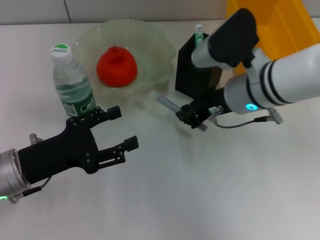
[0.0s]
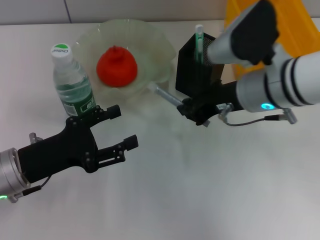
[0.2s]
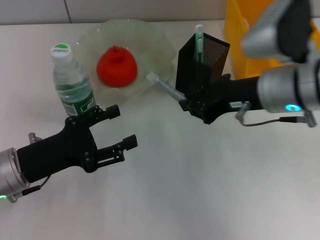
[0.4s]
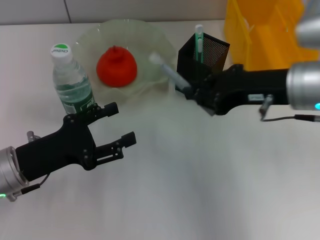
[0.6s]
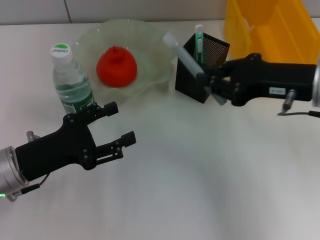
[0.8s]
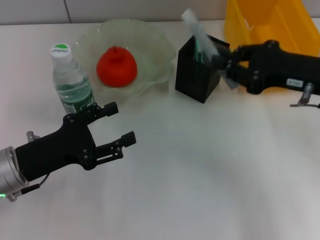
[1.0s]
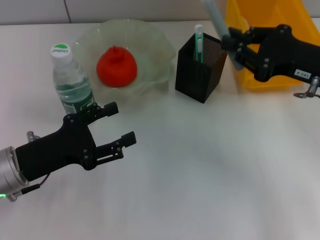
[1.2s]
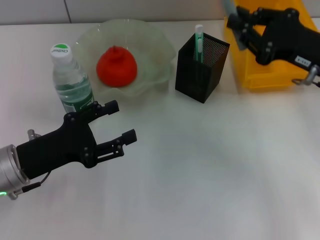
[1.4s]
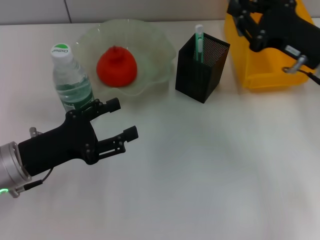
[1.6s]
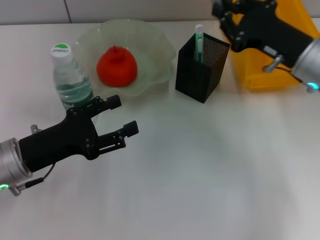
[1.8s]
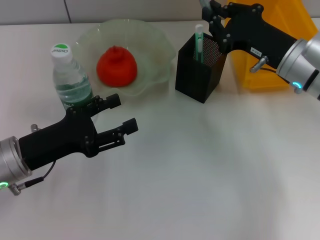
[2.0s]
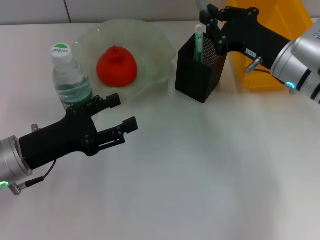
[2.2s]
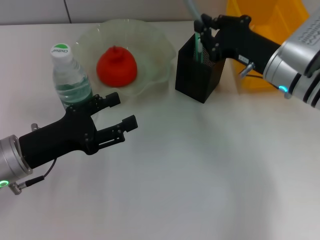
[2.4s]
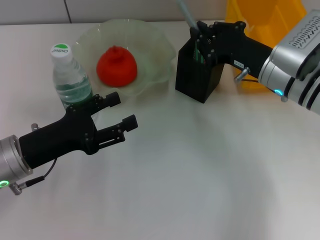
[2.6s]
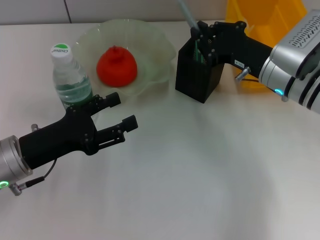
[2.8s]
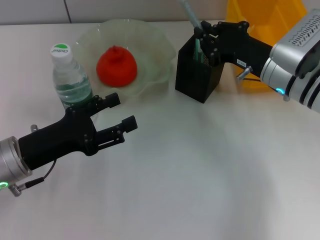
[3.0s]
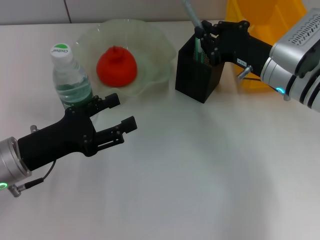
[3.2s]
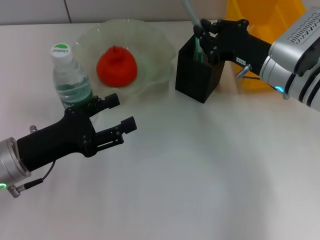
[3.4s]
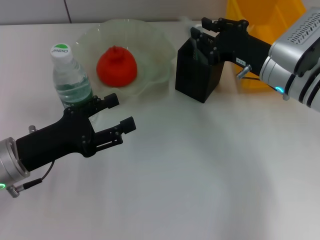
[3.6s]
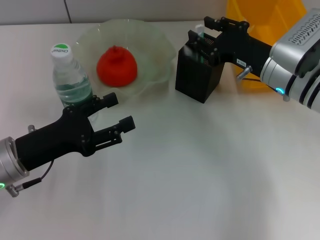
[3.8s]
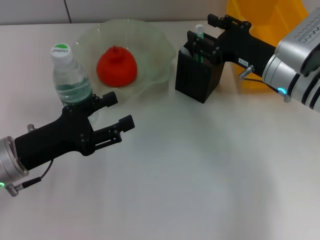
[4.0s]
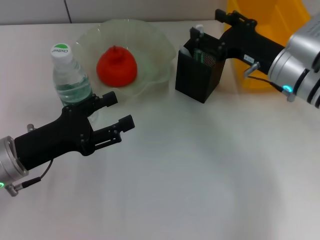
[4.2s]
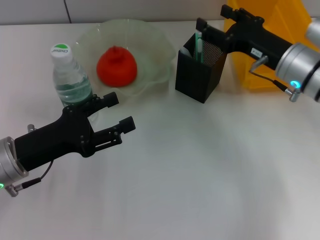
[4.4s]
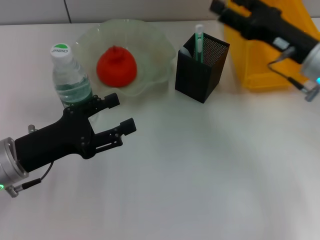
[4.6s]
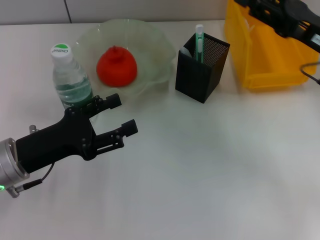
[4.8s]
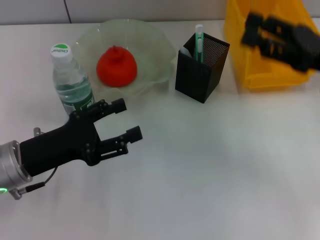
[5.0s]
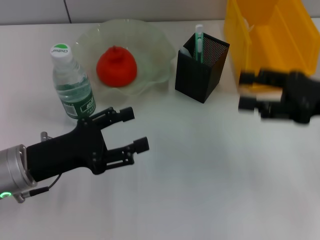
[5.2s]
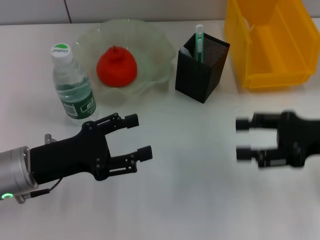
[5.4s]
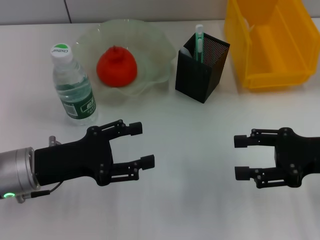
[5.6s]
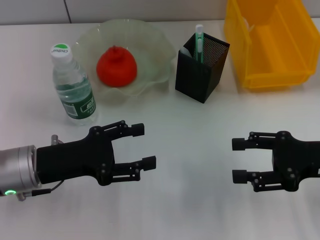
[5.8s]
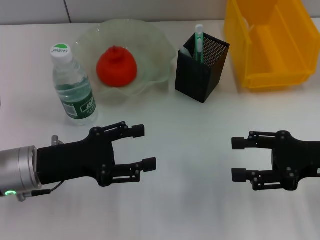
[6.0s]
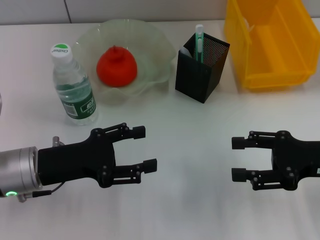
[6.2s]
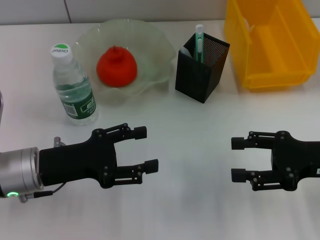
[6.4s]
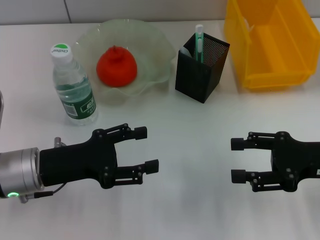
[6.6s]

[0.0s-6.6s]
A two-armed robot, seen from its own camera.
Step, 0.0s to 3.8s: Place the gray glue into the pen holder with the right hand.
0.0s to 1.6s: The right gripper moves to the right, roughly 10 cm.
1.6s to 3.2s: The right gripper is displaced to the left by some 5 cm.
3.2s to 5.0s: The right gripper travels to the right, backward and upward by some 10 cm, and opens its fingers.
5.0s to 6.6s: The right gripper is displaced downward by approximately 5 cm.

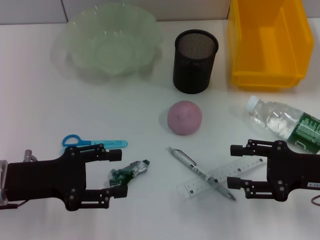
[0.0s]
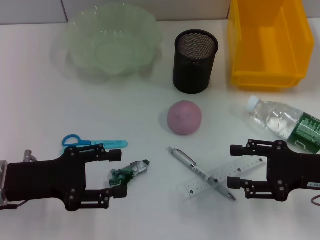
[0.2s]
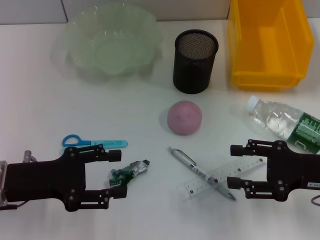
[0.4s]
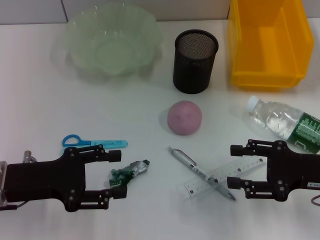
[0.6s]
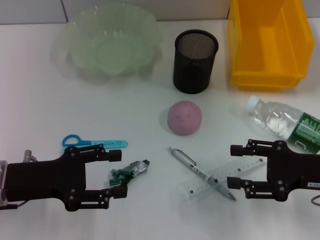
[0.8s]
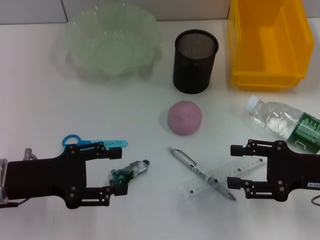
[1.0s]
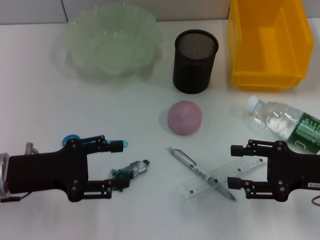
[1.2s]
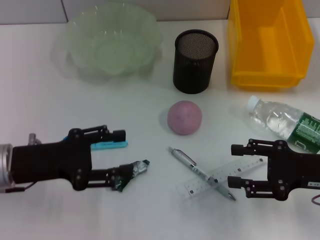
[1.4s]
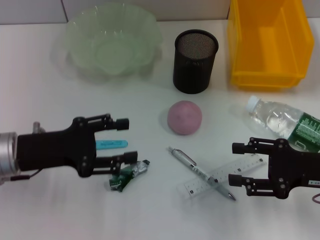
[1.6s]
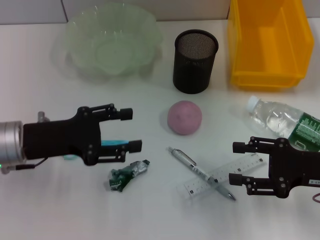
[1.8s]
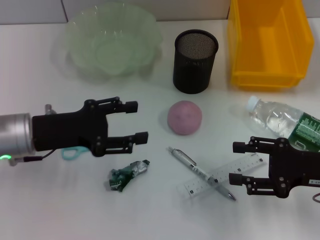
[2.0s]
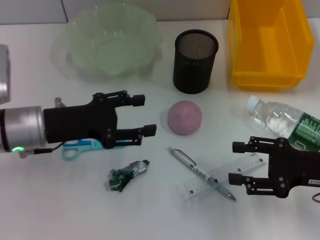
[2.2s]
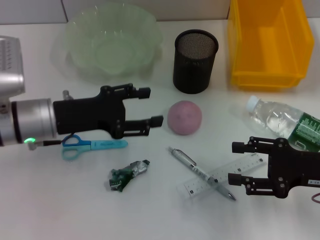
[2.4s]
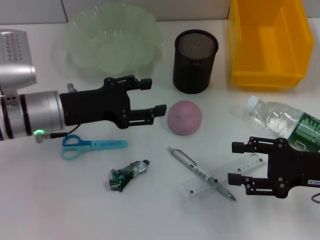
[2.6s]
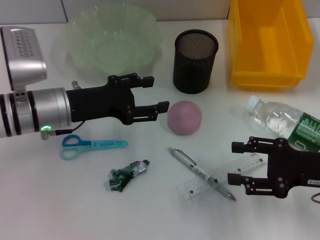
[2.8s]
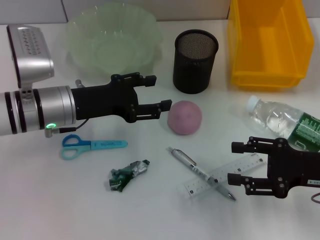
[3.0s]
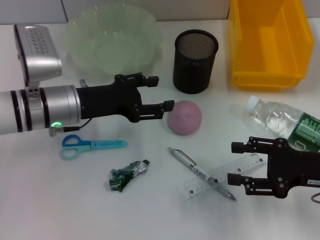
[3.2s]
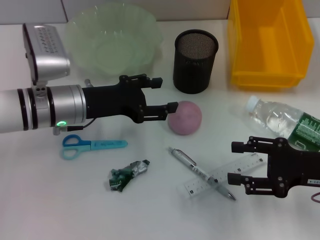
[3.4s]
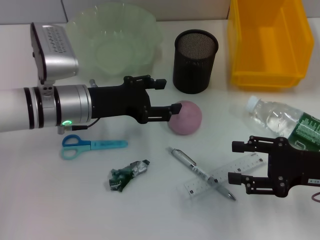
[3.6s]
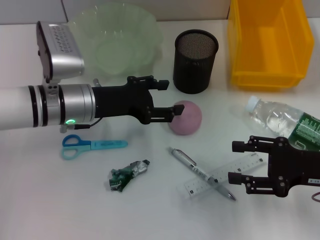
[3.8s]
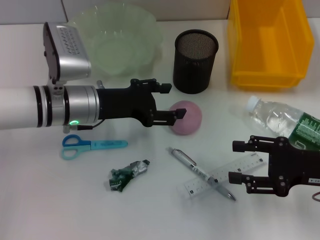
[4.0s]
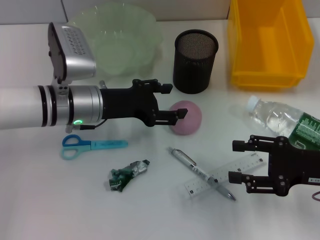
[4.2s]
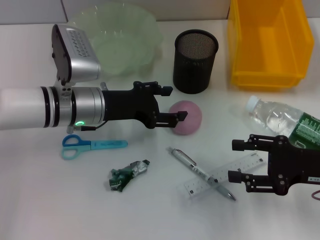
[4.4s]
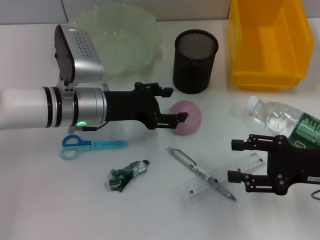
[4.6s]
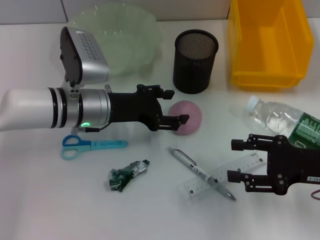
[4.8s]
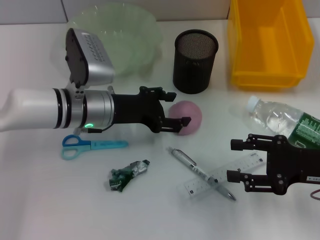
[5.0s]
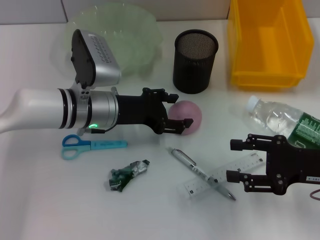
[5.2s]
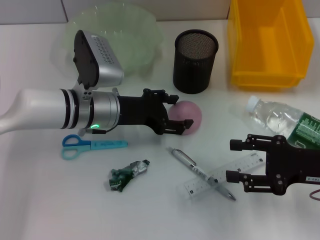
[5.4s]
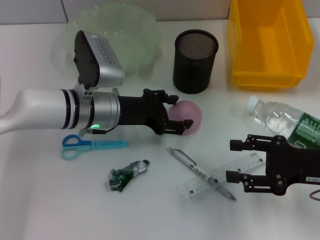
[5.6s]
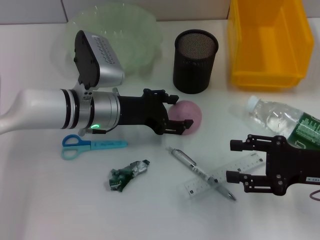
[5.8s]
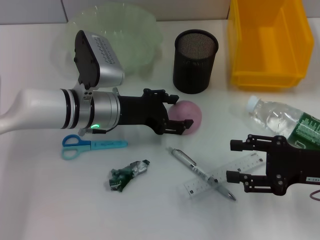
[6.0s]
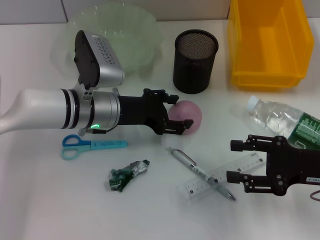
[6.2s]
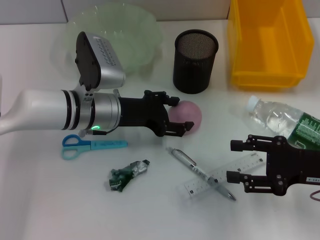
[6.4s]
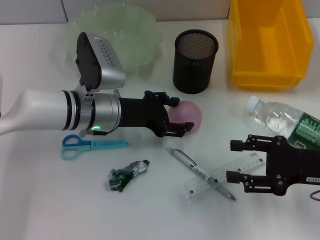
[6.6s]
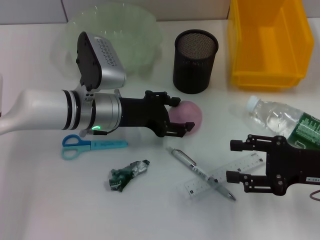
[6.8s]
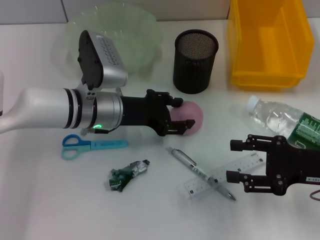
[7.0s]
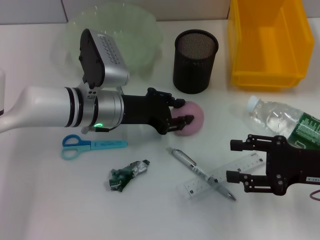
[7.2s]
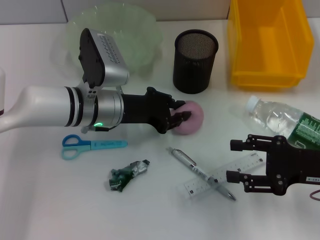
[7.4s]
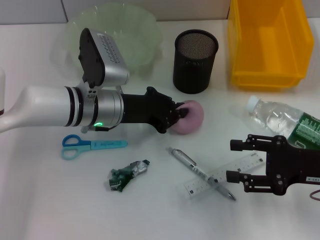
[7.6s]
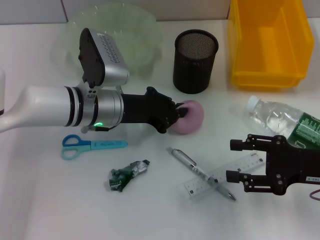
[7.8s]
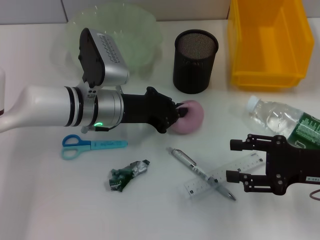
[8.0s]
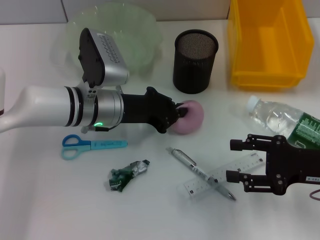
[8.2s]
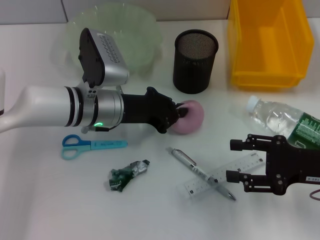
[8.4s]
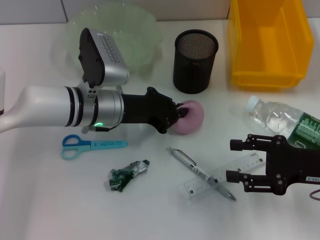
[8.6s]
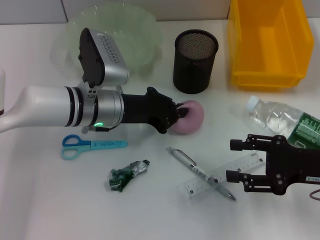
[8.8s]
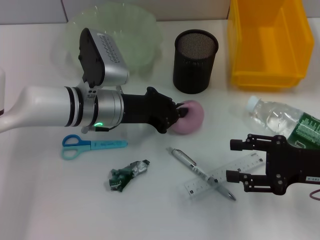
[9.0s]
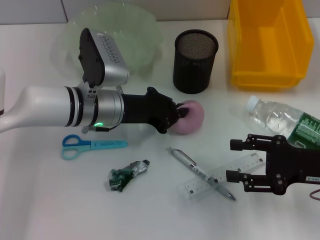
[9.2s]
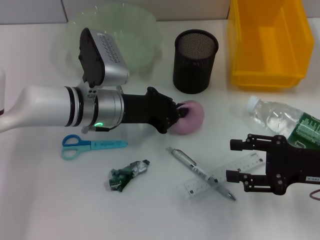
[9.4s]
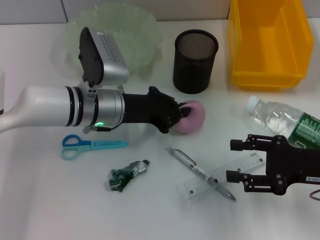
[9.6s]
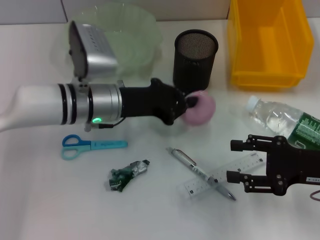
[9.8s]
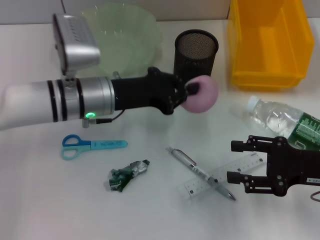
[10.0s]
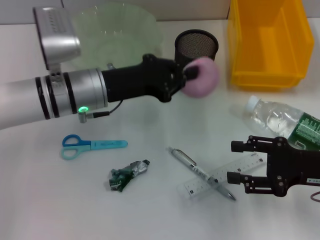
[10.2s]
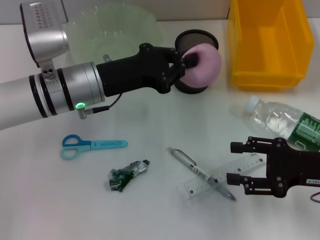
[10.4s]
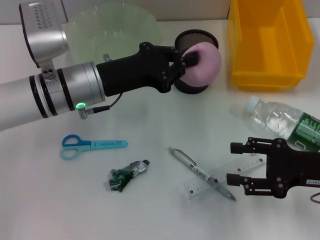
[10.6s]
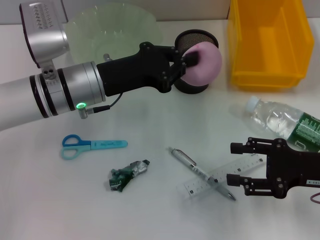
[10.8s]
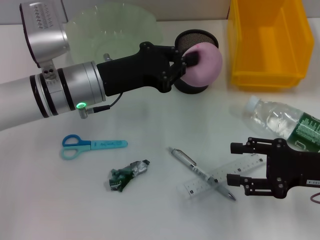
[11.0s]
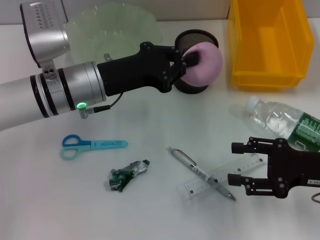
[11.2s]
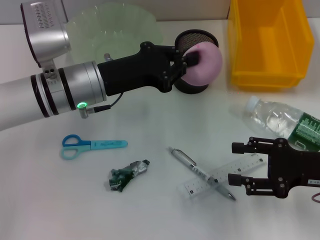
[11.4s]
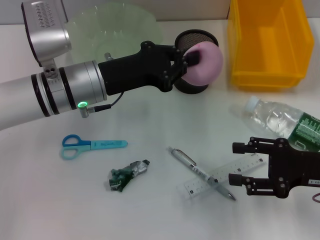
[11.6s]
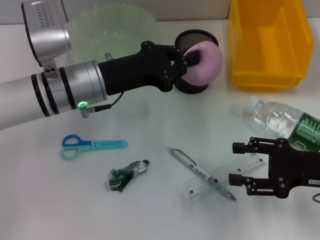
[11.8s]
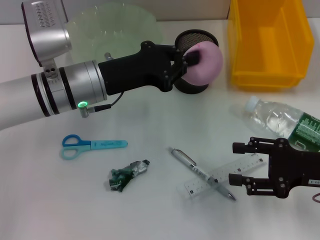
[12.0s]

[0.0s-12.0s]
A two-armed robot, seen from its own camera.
Step, 0.0s to 7.6s: Grab the peach with the left hand.
0.0s to 1.6s: The grippers stay close to where they were, moving slightly.
1.6s to 3.0s: The left gripper is displaced forward and to the right by about 10 cm.
3.0s to 4.4s: The grippers stay close to where they were, moving slightly.
4.4s to 6.0s: The grippers move only a little.
6.0s to 7.6s: The left gripper closes its fingers.
7.6s to 9.0s: The two grippers keep their place.
10.4s to 12.0s: Both grippers stay put.

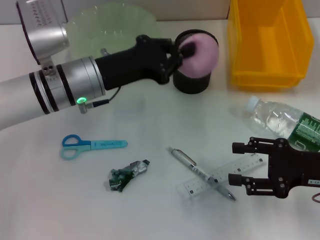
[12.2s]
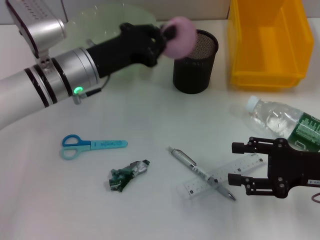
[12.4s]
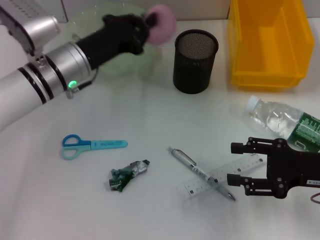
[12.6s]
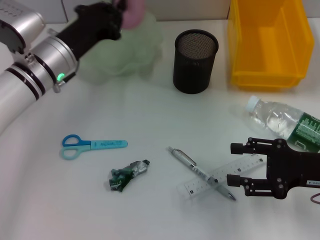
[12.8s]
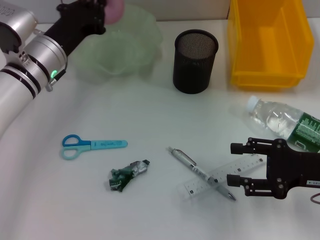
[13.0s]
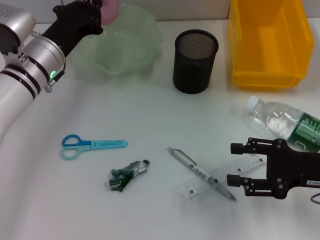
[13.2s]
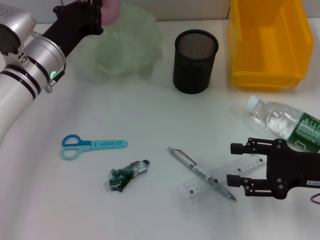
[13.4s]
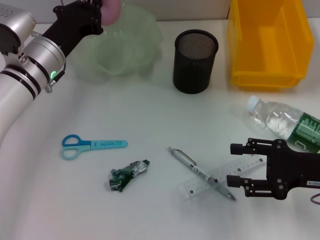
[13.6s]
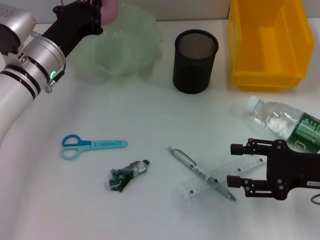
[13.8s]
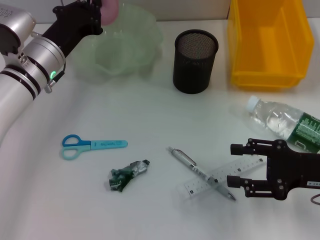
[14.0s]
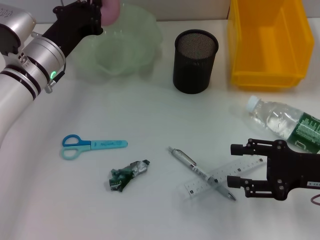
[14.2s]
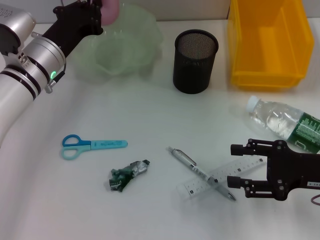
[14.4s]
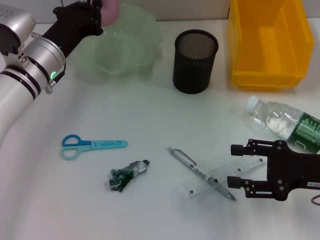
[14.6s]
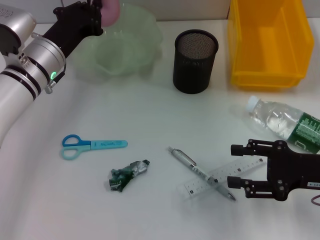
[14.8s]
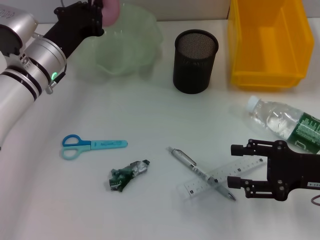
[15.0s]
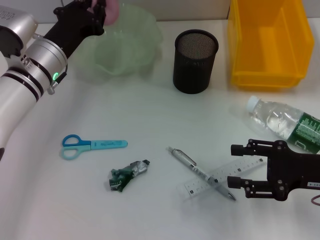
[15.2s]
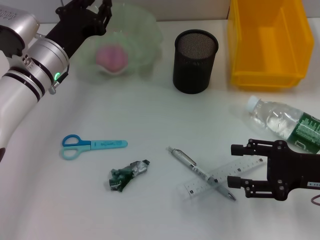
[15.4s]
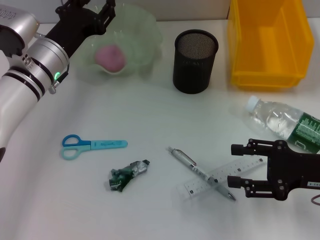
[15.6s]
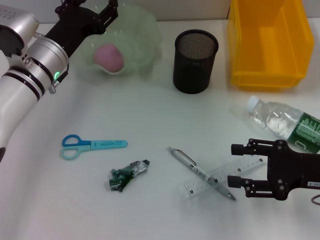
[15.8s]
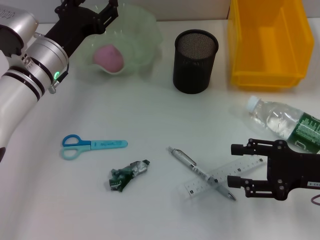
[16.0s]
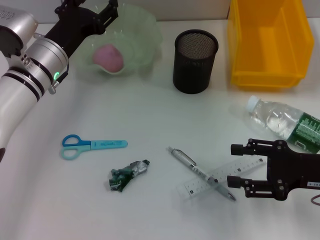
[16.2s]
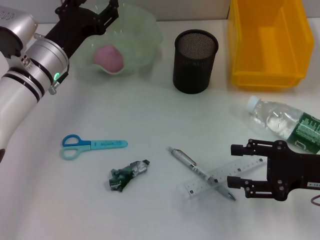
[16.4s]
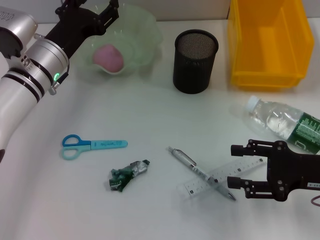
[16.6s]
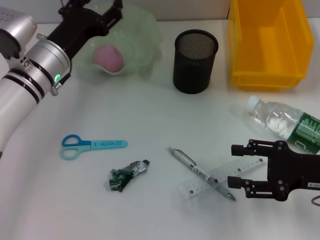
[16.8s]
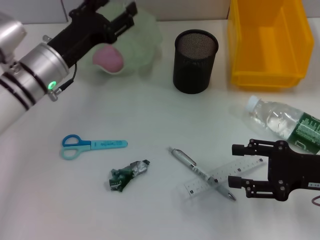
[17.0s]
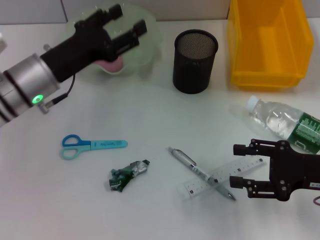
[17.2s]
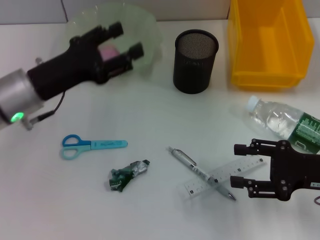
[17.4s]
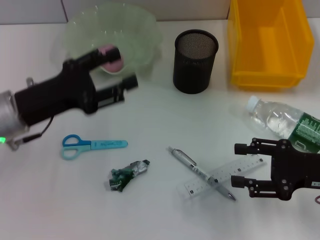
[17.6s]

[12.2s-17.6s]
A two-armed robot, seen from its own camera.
Step, 12.2s to 15.6s: Place the peach into the fruit bowl with the left hand.
12.2s to 13.6s: The left gripper ends up about 5 cm from where it was.
13.6s to 15.0s: Both grippers stay about where they are.
15.0s to 16.2s: The left gripper opens its fingers.
16.2s to 17.6s: The left gripper heads backward and to the left, covering some 10 cm.
